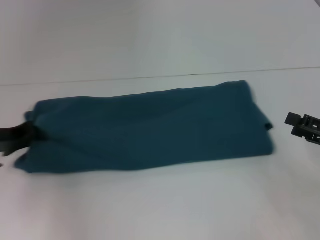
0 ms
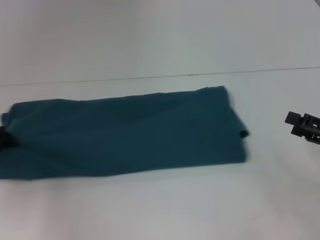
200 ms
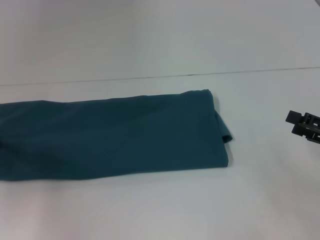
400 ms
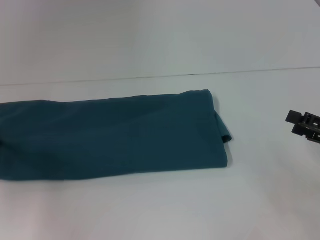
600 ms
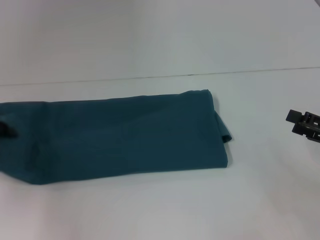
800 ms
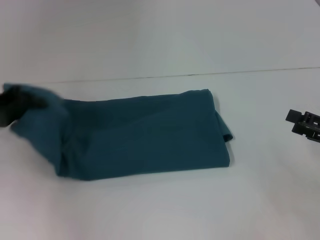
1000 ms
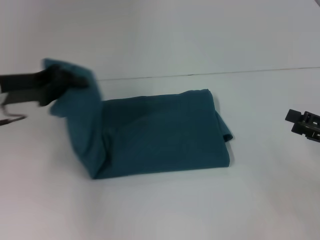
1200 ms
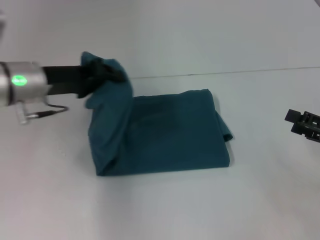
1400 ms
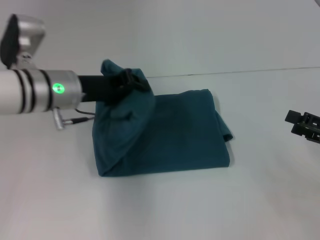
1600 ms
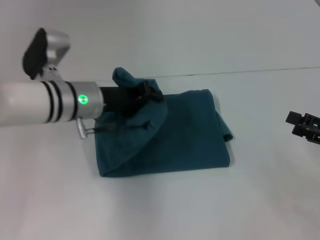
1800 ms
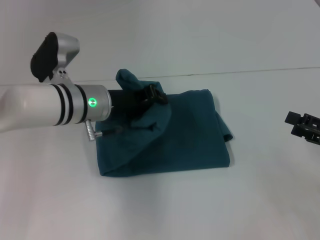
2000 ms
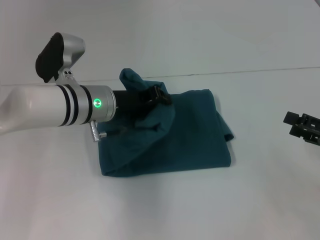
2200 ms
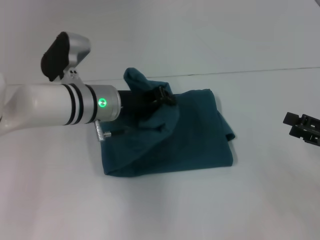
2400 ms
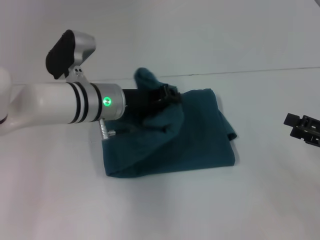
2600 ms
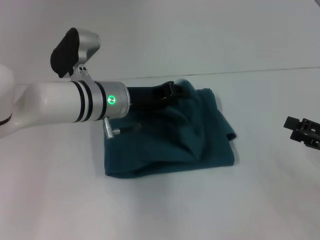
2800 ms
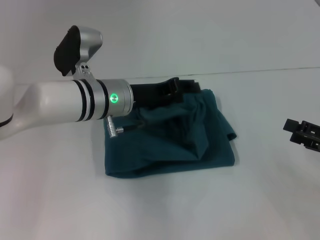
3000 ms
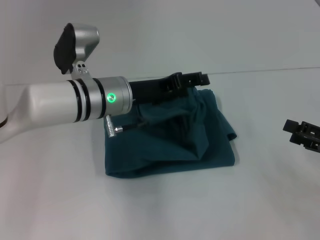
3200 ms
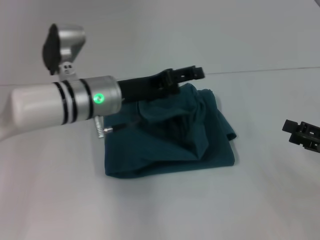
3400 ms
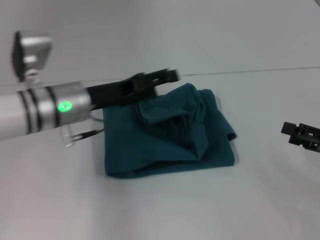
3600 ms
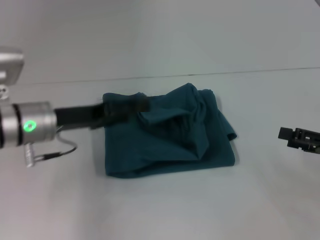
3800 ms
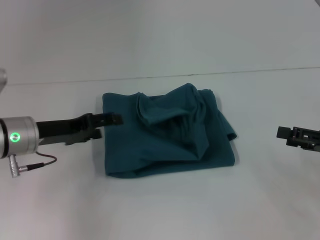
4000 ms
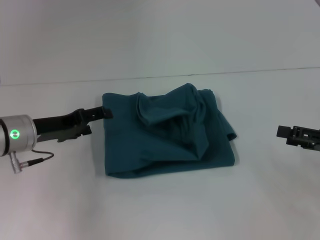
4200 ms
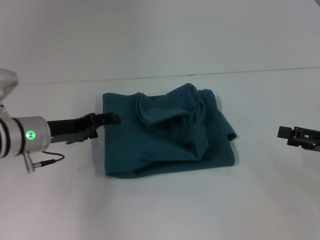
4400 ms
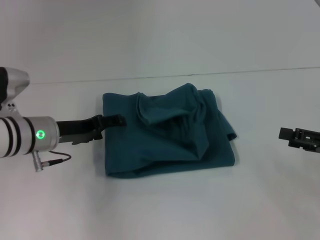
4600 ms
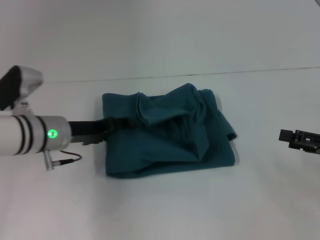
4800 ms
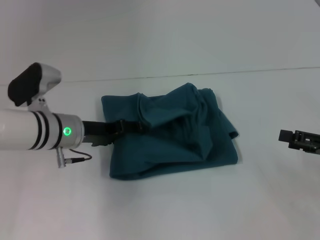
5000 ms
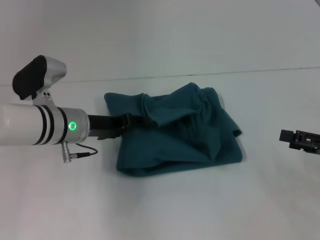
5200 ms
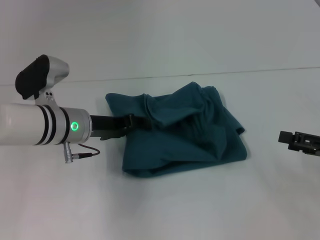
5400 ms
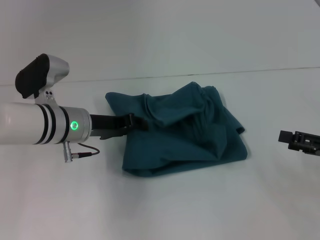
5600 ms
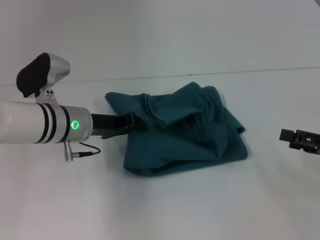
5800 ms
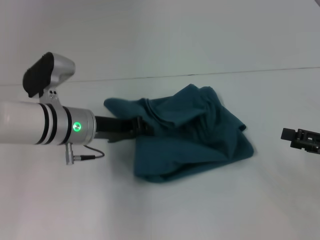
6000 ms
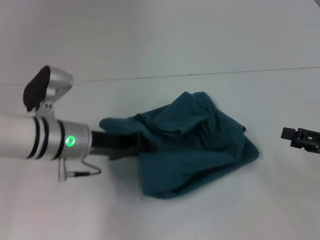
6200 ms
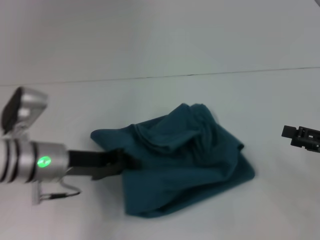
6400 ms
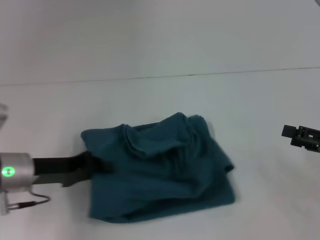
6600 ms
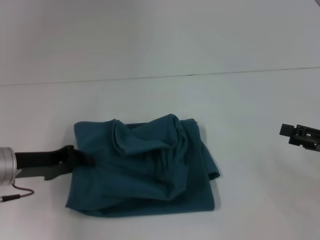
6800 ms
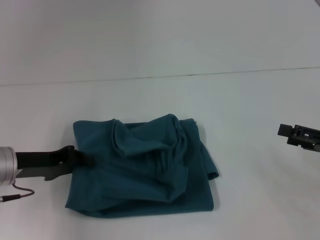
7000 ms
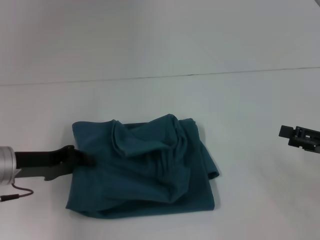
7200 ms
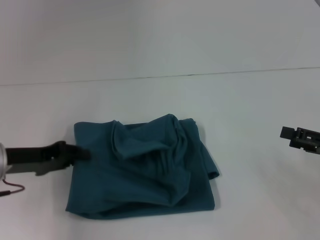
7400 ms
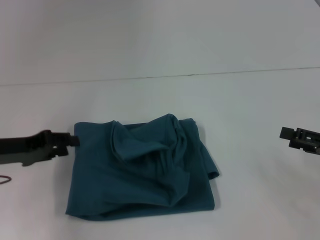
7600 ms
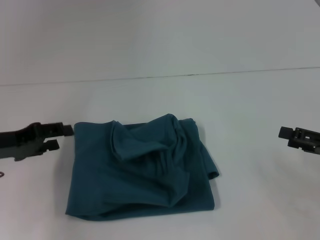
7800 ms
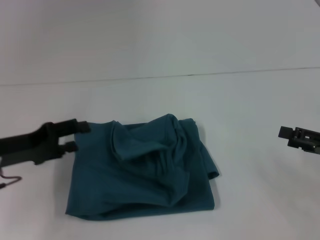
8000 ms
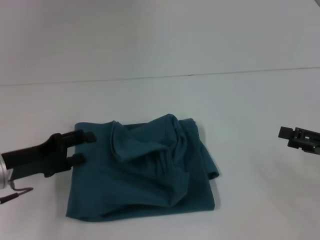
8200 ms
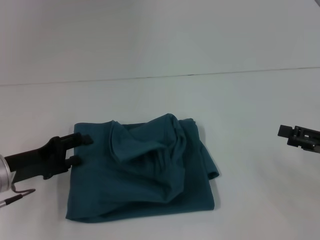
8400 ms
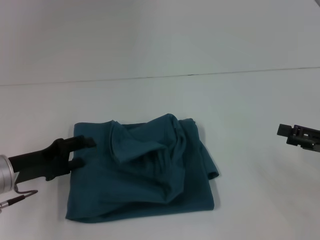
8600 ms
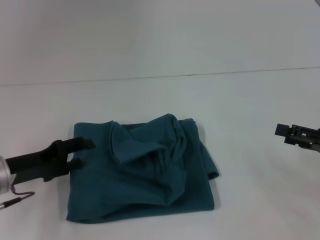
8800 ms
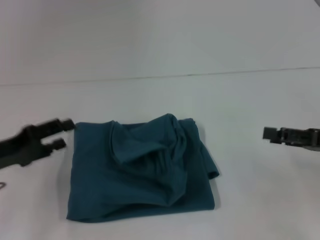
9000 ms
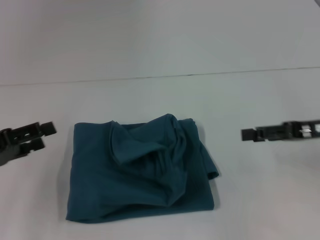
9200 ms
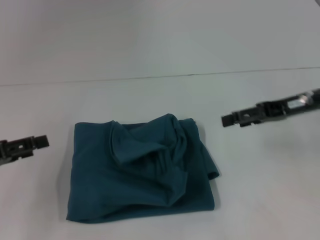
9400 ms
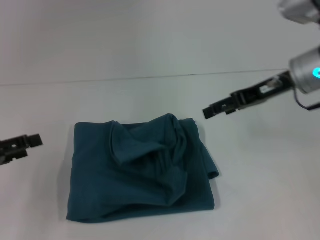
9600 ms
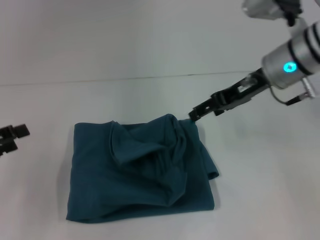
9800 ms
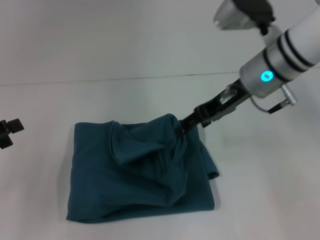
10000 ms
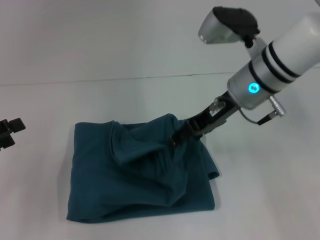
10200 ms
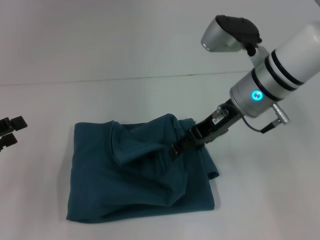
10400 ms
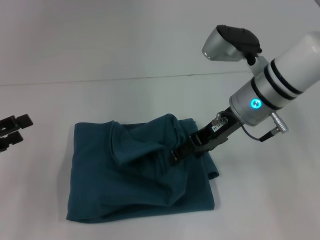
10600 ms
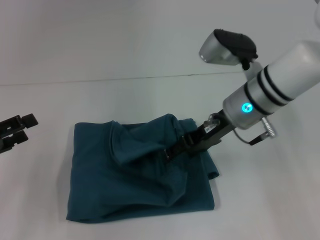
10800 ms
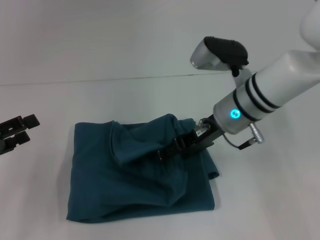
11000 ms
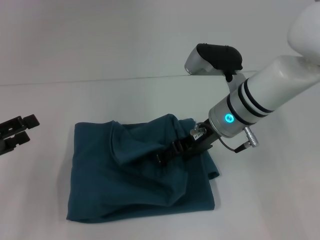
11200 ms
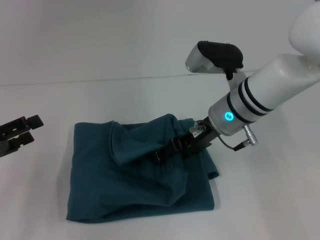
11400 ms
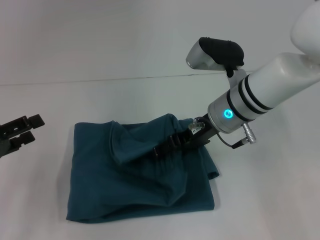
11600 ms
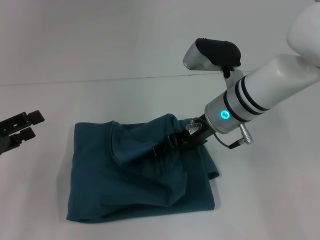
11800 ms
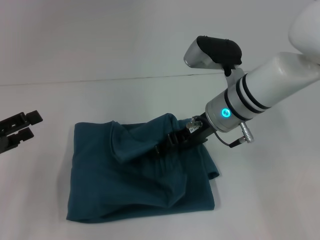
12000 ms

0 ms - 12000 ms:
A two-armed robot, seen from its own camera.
Step, 0 ms - 3600 ms: Fold the clothes to the left.
0 ms - 1600 ms: The left gripper travels to the right and upward by approximately 15 cm.
1600 ms - 3000 ms: The left gripper heads to the right, covering approximately 5 cm.
3000 ms - 4400 ms: The left gripper shifts about 10 cm to the left, and opens its fingers.
4400 ms - 6000 ms: The left gripper moves to the right, some 5 cm, and closes up.
6000 ms - 7600 ms: The left gripper shifts roughly 15 cm to the left and backward.
7600 ms - 9000 ms: The left gripper opens.
9000 ms - 10400 ms: The right gripper shifts approximately 20 cm to the left and forward. Meanwhile the left gripper shifts by approximately 5 cm.
10400 ms - 12000 ms: The right gripper moves approximately 5 cm.

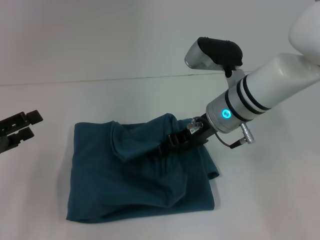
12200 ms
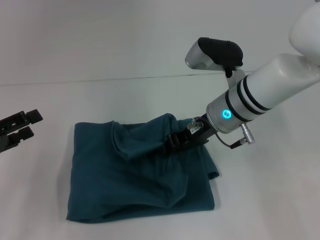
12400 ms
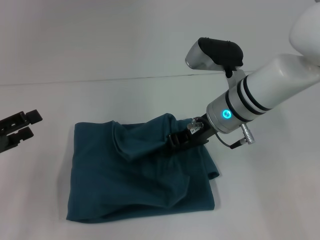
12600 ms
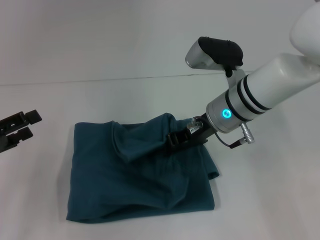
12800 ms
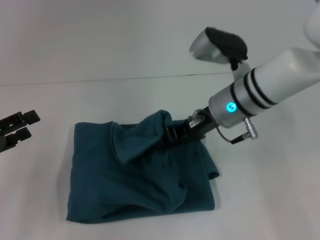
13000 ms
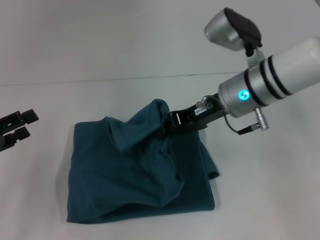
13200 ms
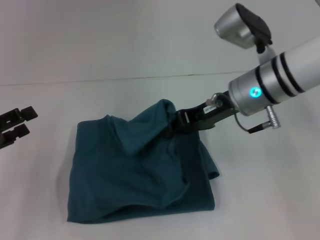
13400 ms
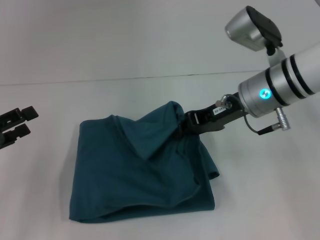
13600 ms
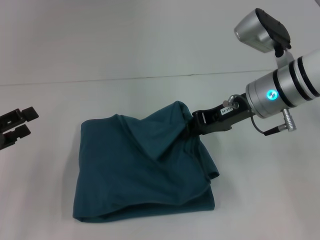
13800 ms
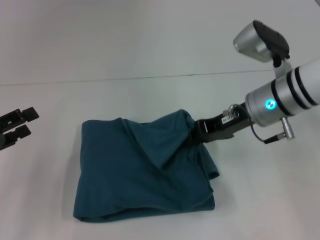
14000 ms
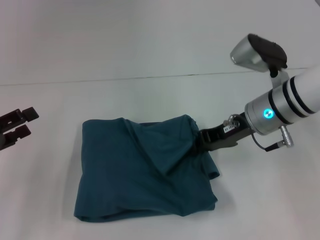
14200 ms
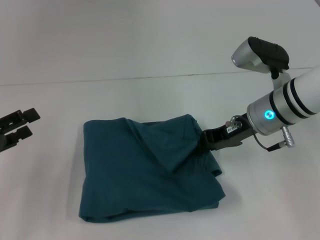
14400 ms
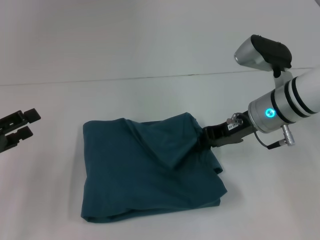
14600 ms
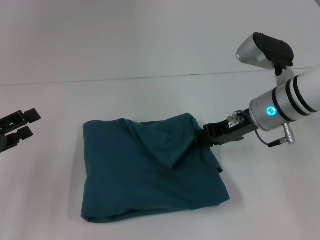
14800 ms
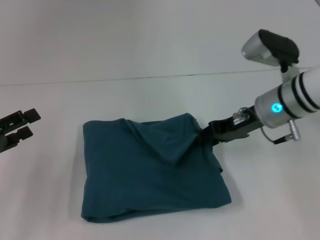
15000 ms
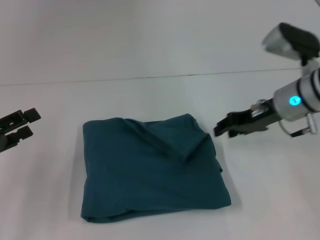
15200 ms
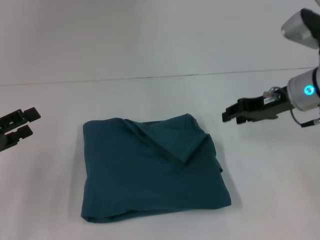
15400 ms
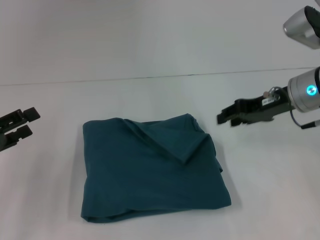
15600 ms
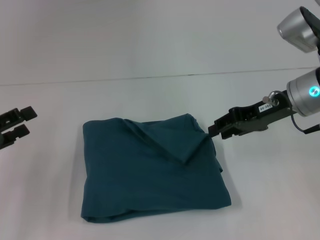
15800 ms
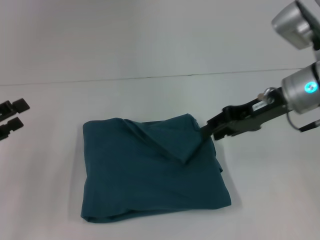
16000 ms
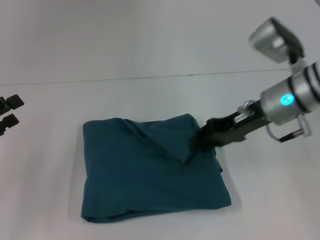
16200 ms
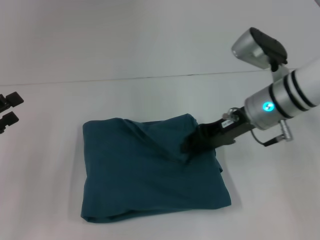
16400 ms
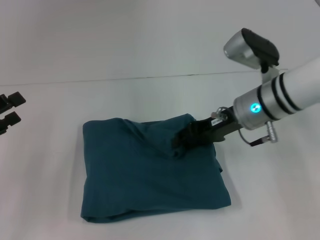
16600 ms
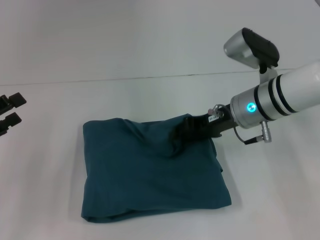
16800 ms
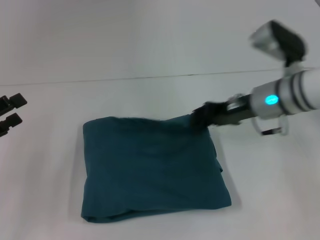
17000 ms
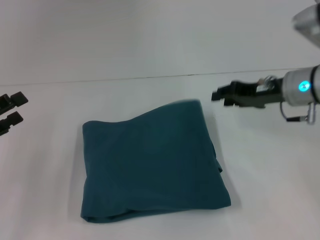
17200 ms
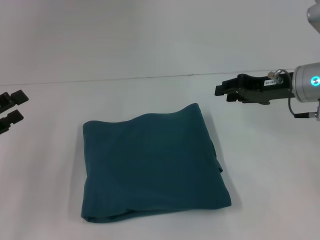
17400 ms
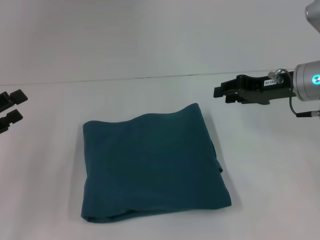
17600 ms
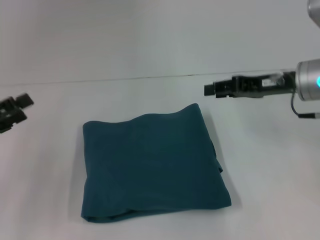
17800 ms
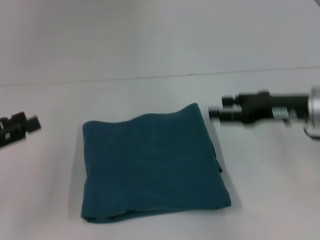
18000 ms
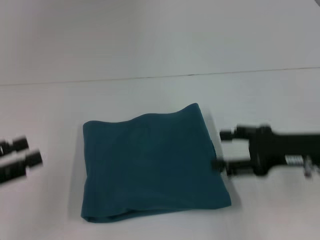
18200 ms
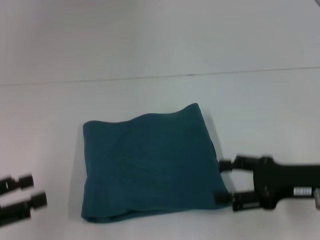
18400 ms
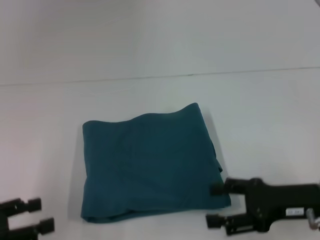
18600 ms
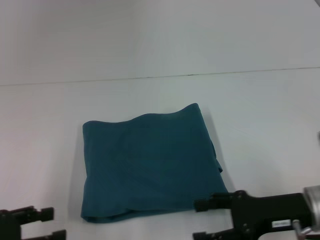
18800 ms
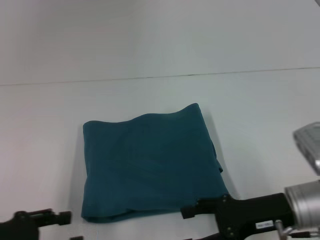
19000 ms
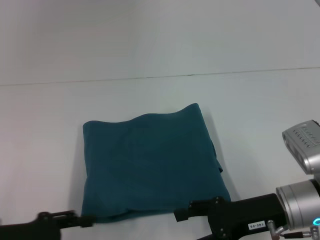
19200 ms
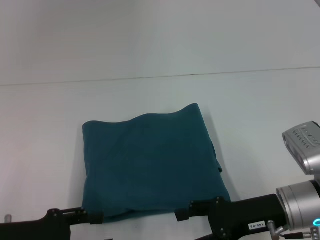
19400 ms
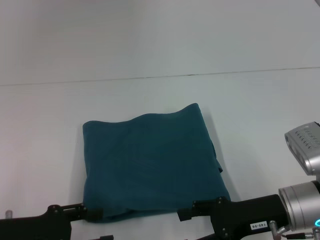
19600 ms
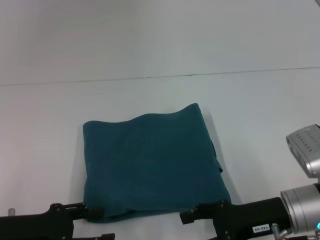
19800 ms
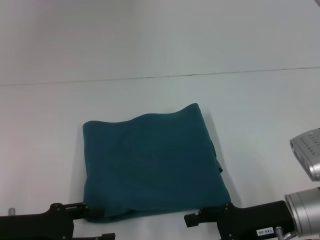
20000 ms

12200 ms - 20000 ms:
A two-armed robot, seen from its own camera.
12200 ms - 13800 ms: The right gripper travels to the right by about 5 cm, and closes its fingers.
13800 ms - 15400 ms: The right gripper shifts approximately 5 cm to the right, and opens up.
15400 ms - 16800 ms: The right gripper moves to the left, some 10 cm.
16800 ms - 18400 ms: The right gripper goes approximately 15 cm backward and to the right, and opens up, while the left gripper travels backward by about 5 cm.
18400 ms - 20000 ms: The left gripper heads to the right, covering some 5 cm. Meanwhile the right gripper ends up about 5 cm from where it was.

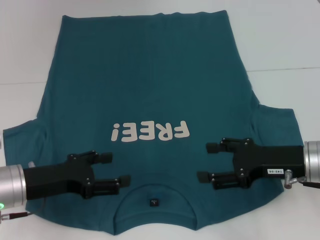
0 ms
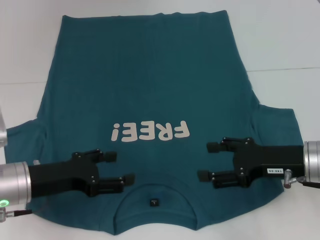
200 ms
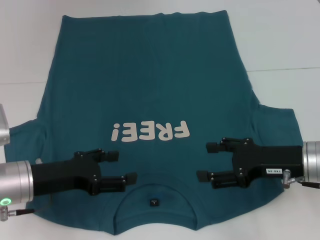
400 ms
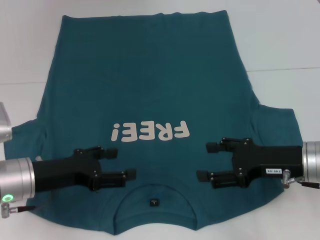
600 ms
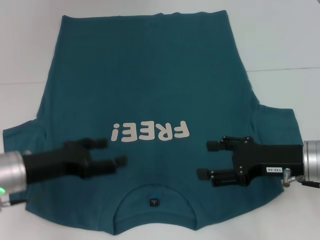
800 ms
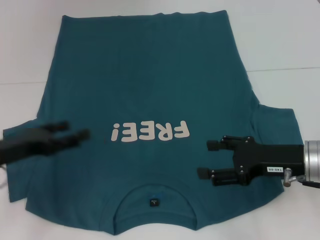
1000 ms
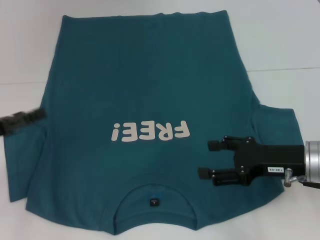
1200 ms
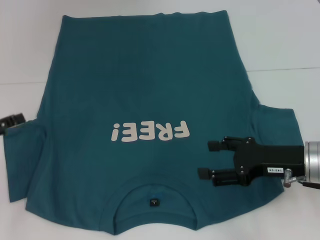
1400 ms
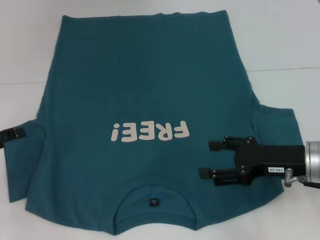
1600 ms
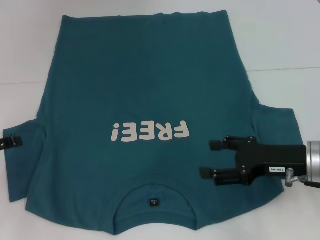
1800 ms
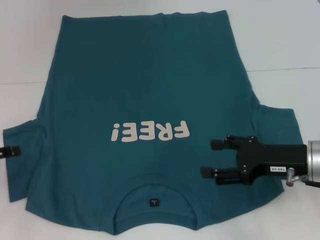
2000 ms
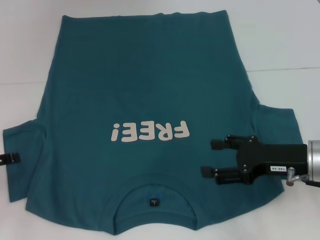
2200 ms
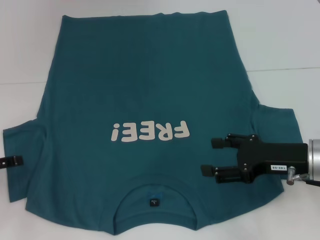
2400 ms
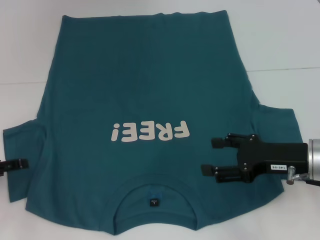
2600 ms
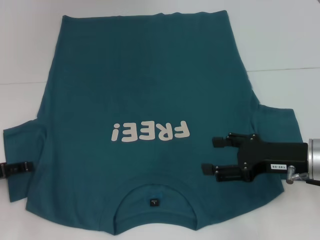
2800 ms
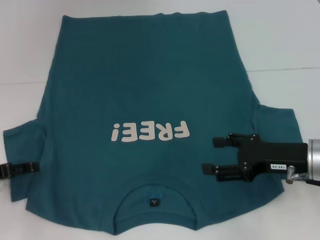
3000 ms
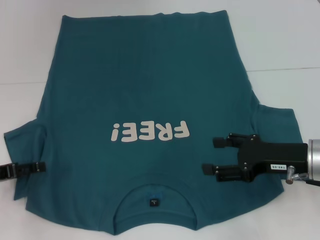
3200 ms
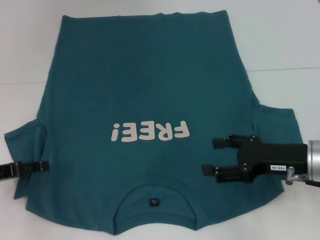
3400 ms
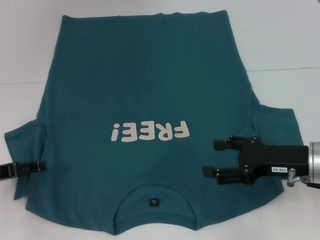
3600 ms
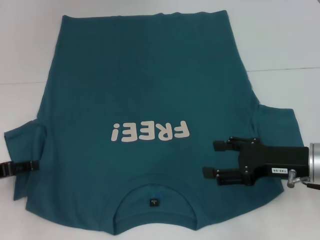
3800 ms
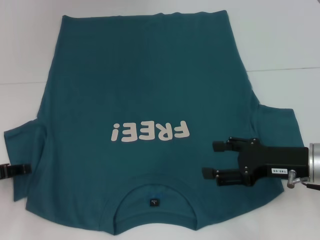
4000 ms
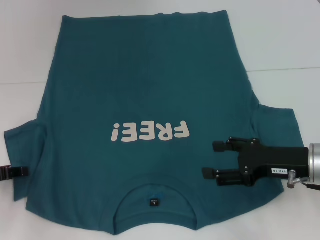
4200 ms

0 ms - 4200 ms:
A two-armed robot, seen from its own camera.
0 ms - 1400 ms: The left gripper travels to the left by about 10 cm.
1400 ms - 2800 ms: There are only small adjustments of the grippers.
2800 ms - 4200 ms: The grippers make only small movements.
